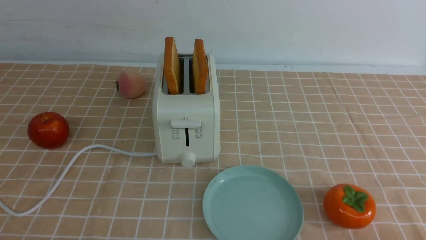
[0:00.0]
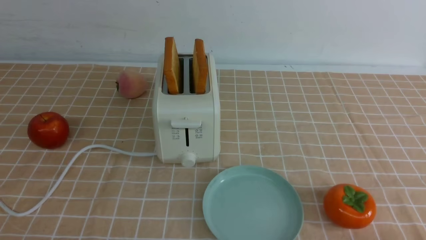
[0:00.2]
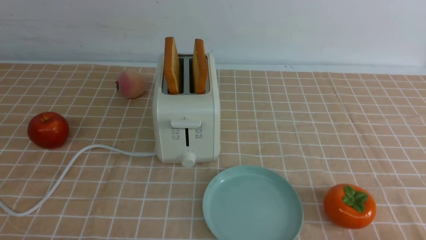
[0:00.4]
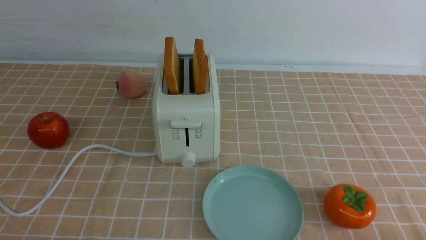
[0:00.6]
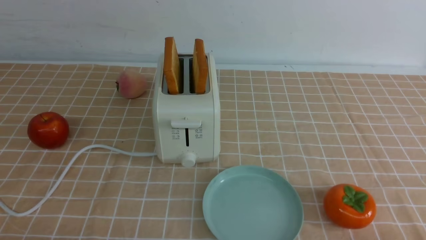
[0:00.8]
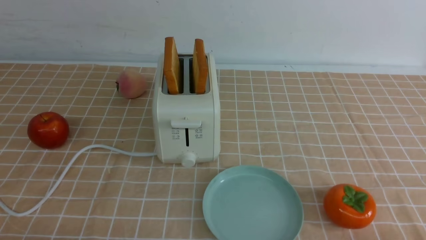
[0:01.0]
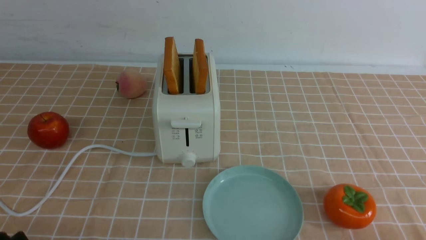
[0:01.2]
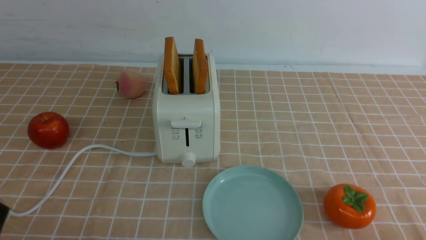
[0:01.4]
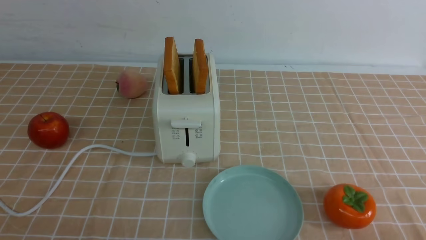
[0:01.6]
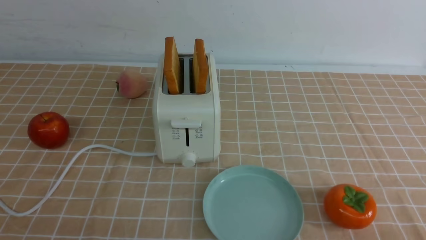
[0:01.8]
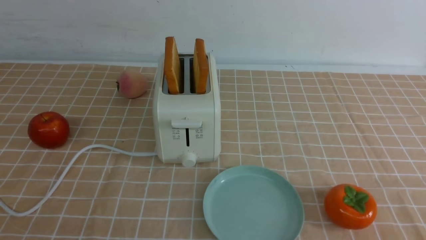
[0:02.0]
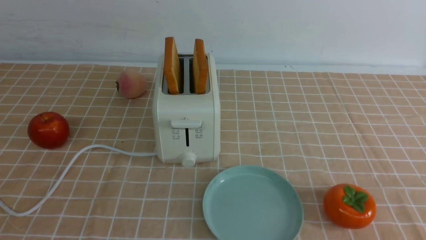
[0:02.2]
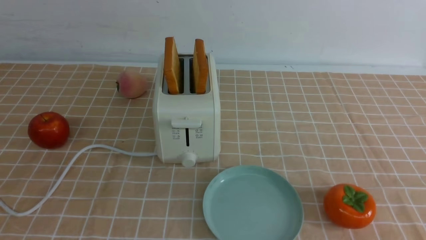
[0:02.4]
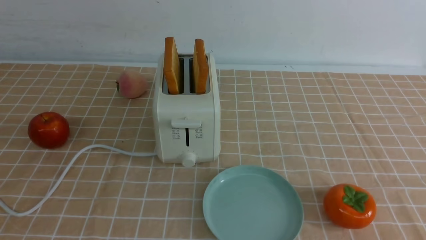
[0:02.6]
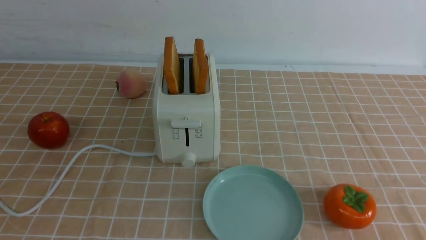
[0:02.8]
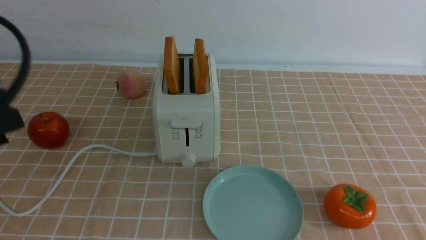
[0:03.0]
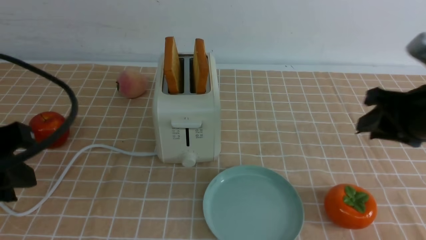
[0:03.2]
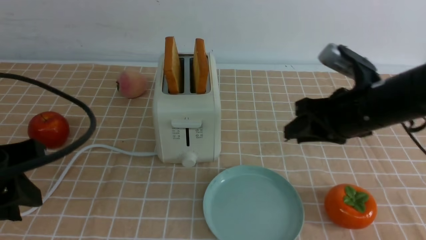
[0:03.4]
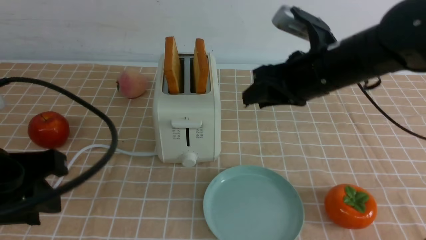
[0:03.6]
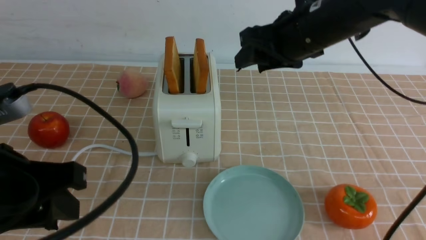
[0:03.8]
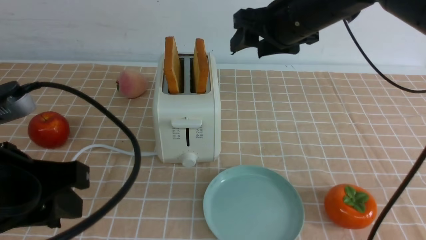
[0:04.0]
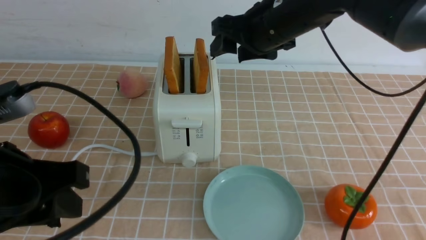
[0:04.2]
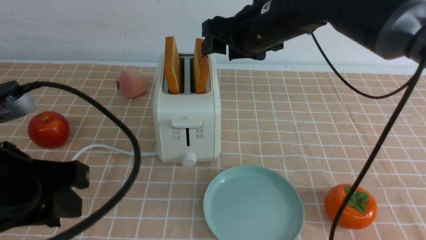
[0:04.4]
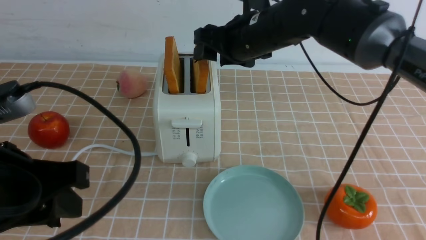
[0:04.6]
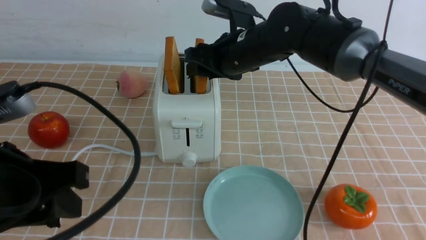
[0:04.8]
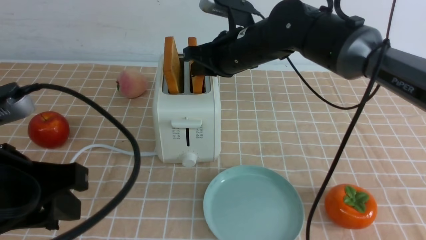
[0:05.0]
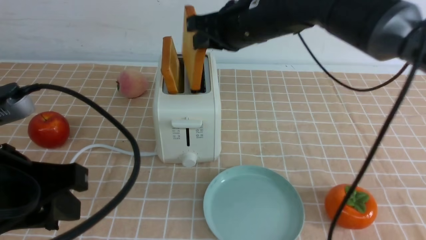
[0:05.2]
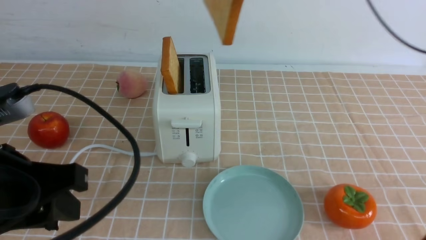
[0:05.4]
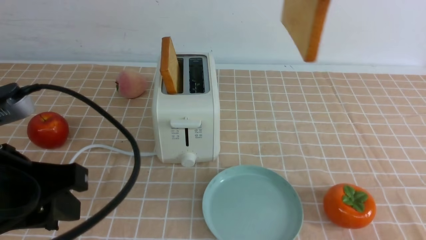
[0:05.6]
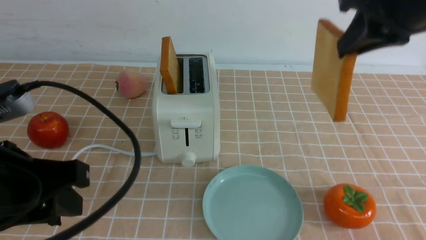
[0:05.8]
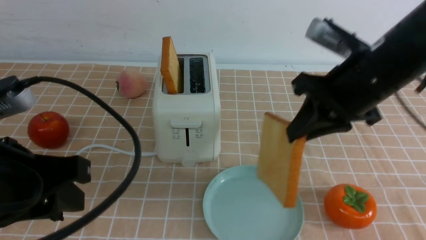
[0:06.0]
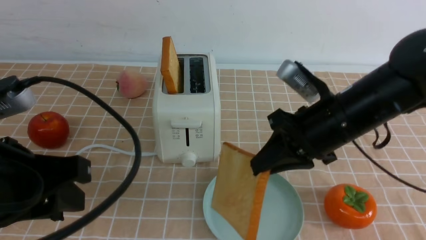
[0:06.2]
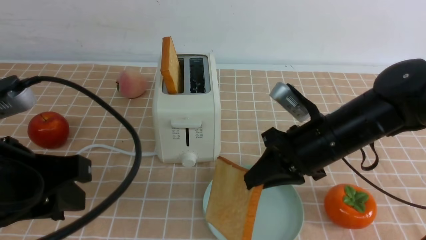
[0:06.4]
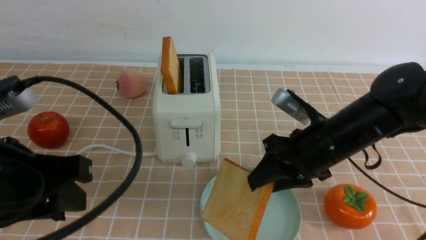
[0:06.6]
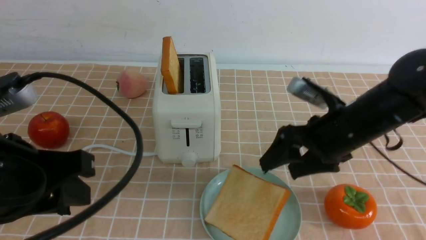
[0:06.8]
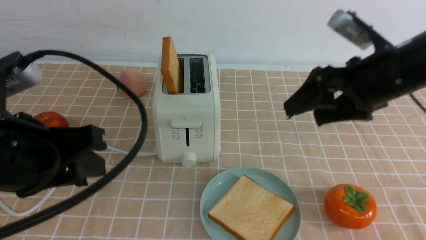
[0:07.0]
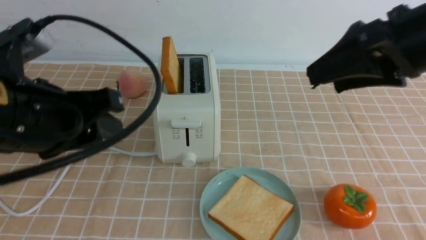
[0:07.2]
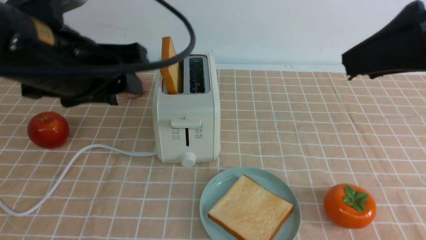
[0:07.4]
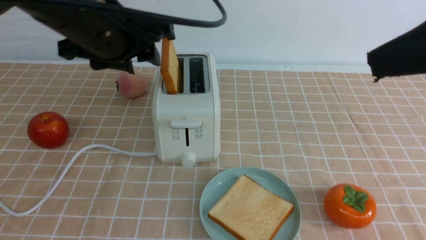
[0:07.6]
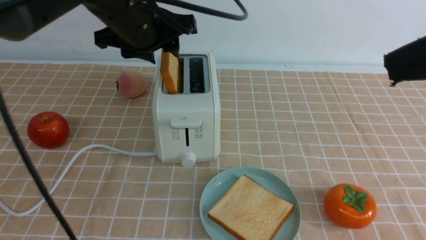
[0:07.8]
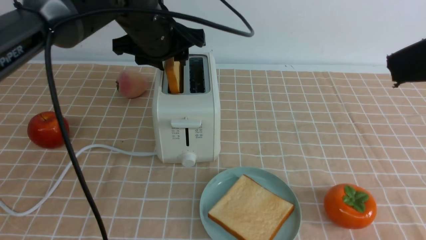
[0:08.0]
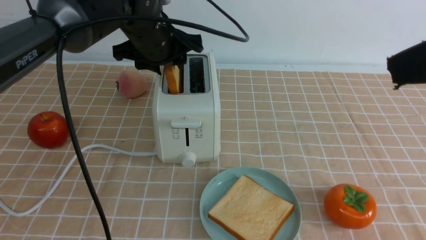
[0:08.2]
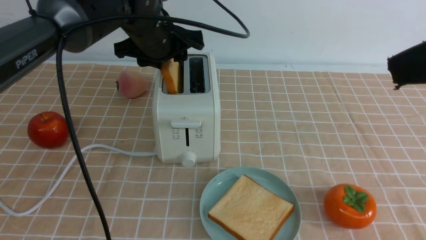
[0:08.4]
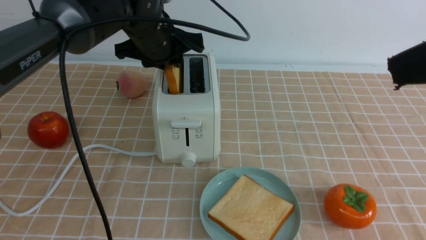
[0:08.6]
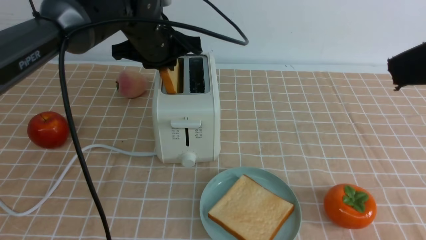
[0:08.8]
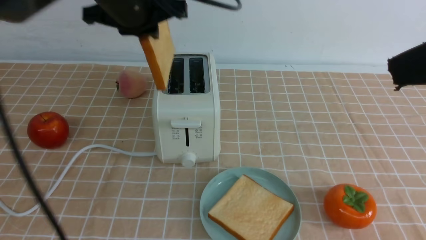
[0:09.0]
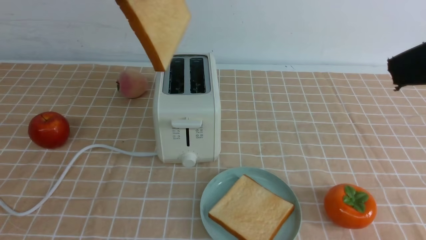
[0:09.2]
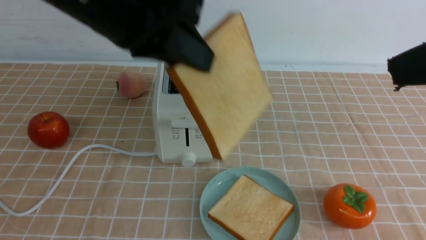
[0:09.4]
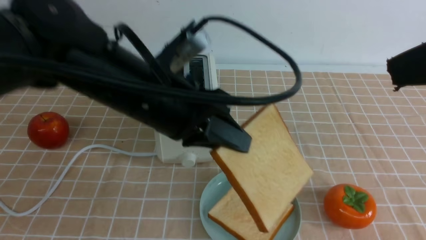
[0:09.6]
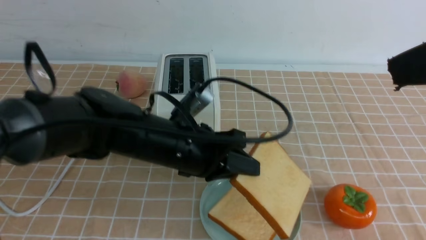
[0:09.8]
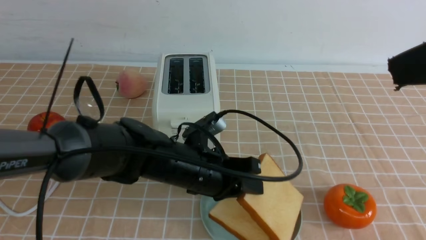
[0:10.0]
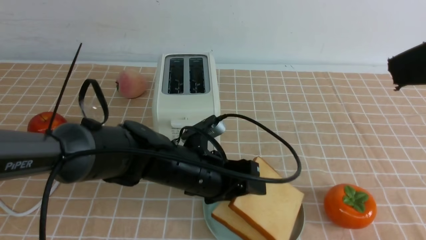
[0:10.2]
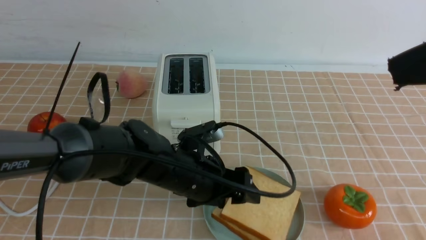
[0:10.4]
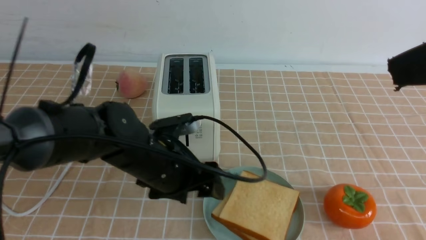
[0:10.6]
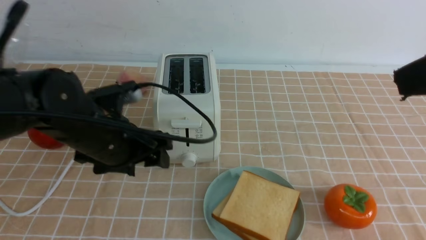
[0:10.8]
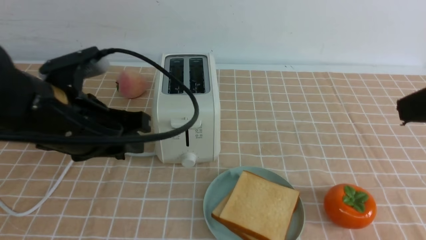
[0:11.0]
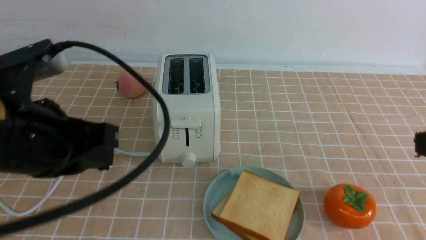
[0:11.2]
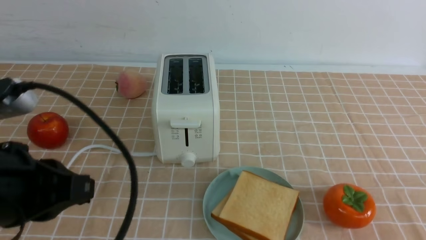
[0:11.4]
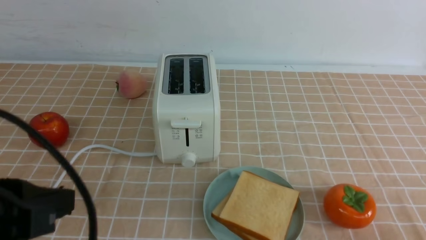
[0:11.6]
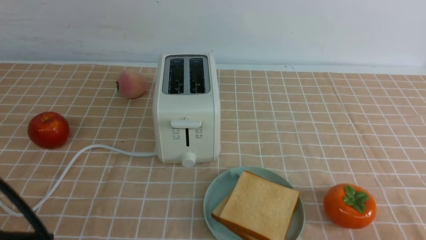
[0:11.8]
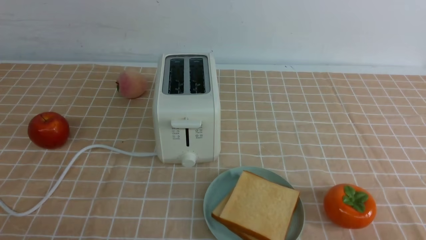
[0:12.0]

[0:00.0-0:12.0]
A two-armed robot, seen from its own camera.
Task of the whole recording: take toasted bread from bread machine on light coffee tablecloth place on plate.
Step, 0:00.0 to 0:05.0: use the right arm to take out a slice of bread.
Step, 0:05.4 to 0:07.0: use the right arm to put a slice of bread into the plate.
Step, 0:07.2 to 0:09.0: use the left arm to take out a slice of bread.
Step, 0:09.2 to 0:10.4: use the left arm to put a slice of bread into the empty plate.
0:01.6 to 0:03.0: The right gripper moves forward and upward, roughly 25 cm, while the left gripper heads upward and forward, covering approximately 15 cm.
0:03.0 to 0:04.4: The left gripper shifts by about 5 cm. The right gripper goes about 30 cm to the left and forward, and opens its fingers.
0:04.4 to 0:06.0: The right gripper is displaced backward and to the right by approximately 15 cm, moves roughly 10 cm upward and comes back, and closes up.
0:06.0 to 0:07.6: The left gripper goes approximately 15 cm forward. Meanwhile the right gripper heads backward, upward and to the right, covering roughly 20 cm, and opens.
0:07.6 to 0:09.0: The left gripper moves roughly 10 cm forward and comes back, and closes.
0:09.0 to 0:10.4: The left gripper moves downward, some 25 cm, and opens up.
0:10.4 to 0:12.0: The right gripper travels downward and backward by some 25 cm, and closes up, while the left gripper travels backward, to the left and upward by approximately 30 cm, and closes up.
